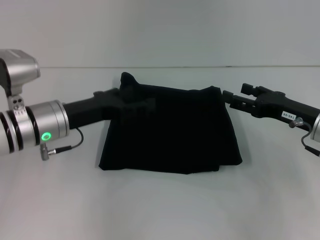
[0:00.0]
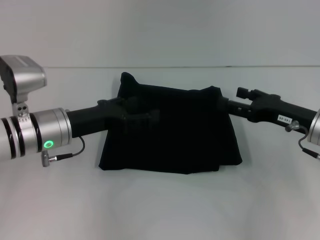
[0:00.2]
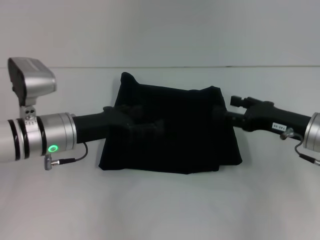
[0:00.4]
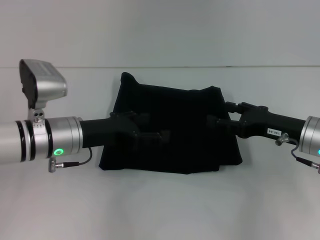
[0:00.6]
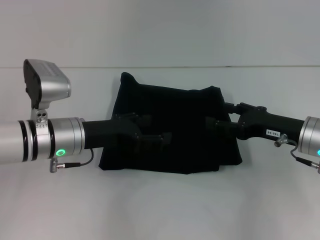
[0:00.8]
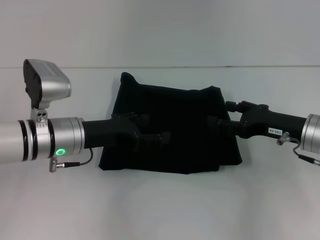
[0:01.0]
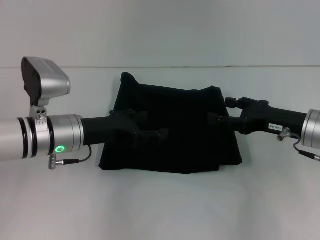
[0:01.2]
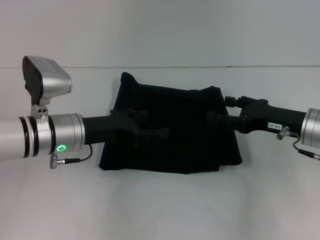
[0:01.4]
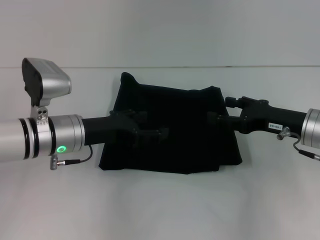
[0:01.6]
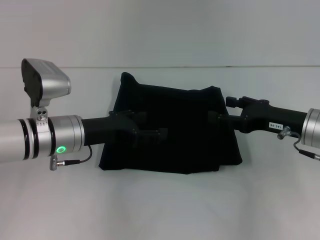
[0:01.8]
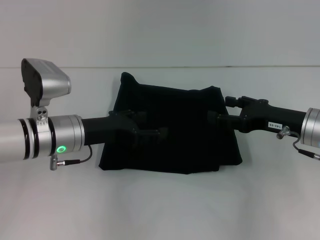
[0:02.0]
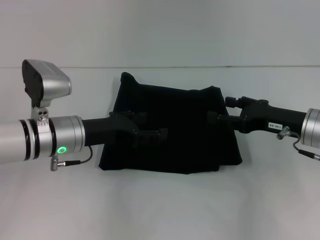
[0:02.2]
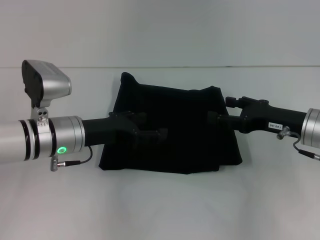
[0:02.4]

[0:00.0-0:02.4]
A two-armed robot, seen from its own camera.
0.0 to 1.2 s: The grippers make only small movements.
1.2 to 2.4 s: Both grippers stay about where they are.

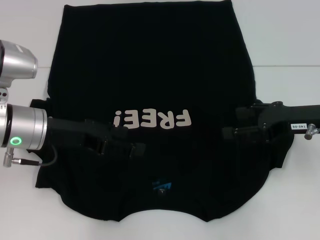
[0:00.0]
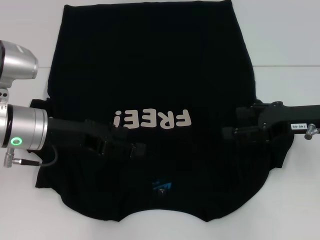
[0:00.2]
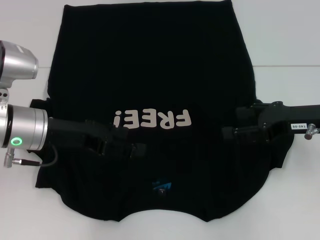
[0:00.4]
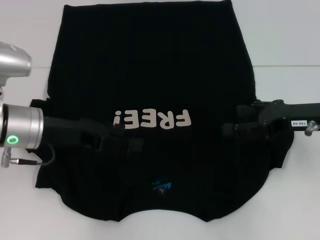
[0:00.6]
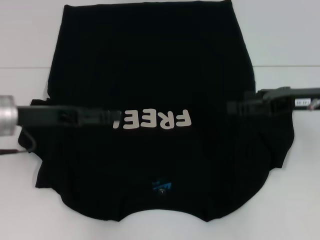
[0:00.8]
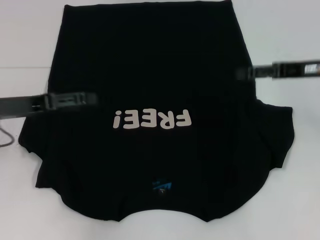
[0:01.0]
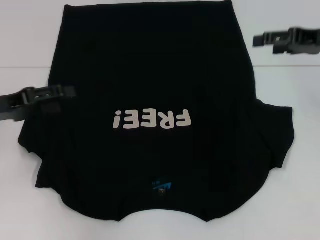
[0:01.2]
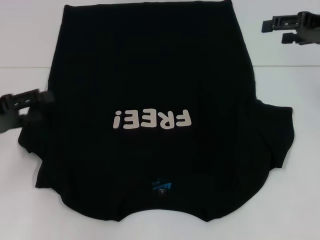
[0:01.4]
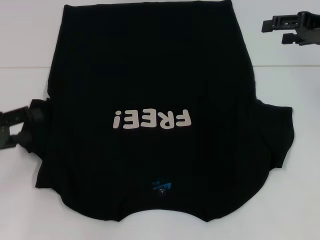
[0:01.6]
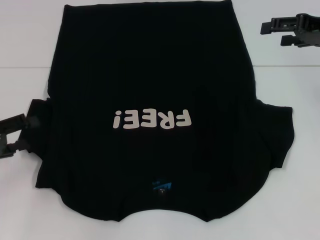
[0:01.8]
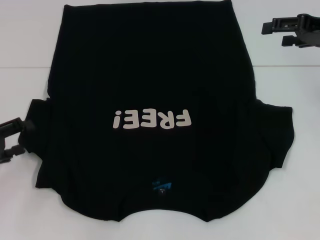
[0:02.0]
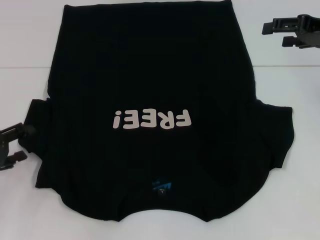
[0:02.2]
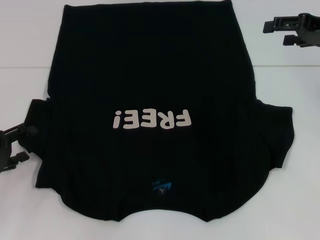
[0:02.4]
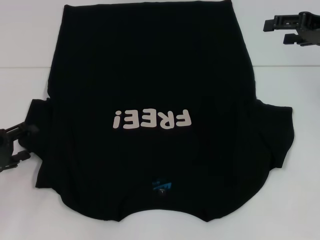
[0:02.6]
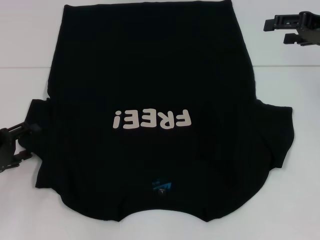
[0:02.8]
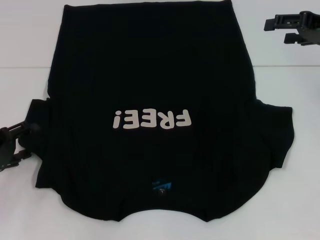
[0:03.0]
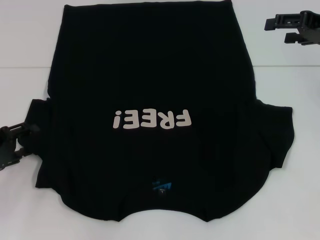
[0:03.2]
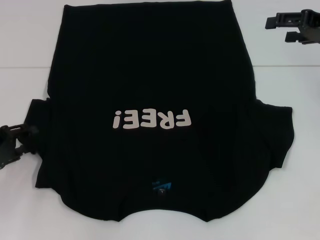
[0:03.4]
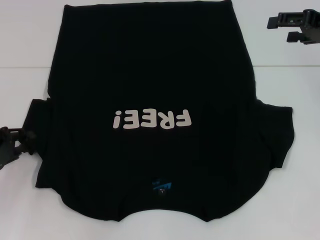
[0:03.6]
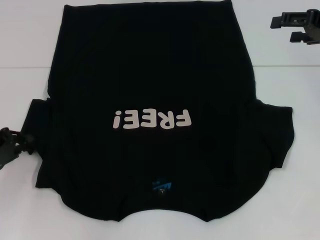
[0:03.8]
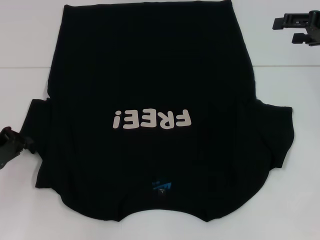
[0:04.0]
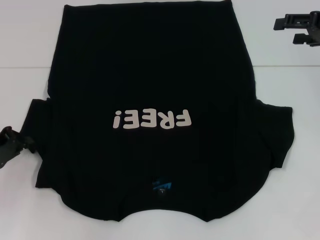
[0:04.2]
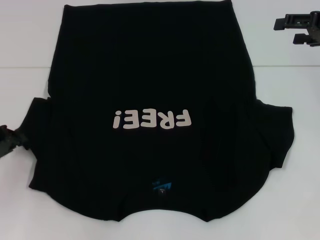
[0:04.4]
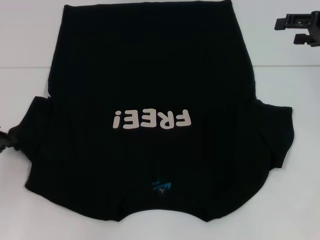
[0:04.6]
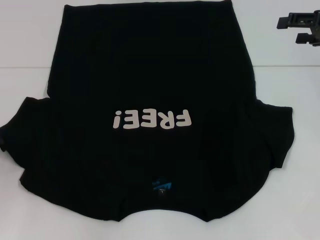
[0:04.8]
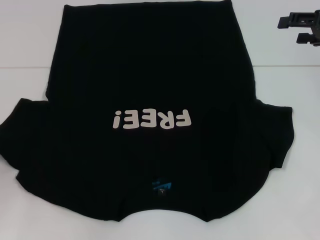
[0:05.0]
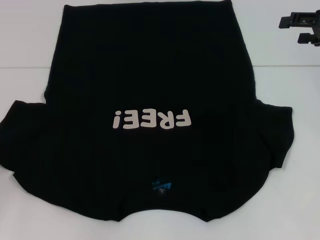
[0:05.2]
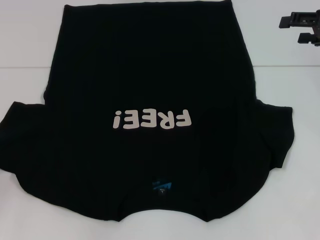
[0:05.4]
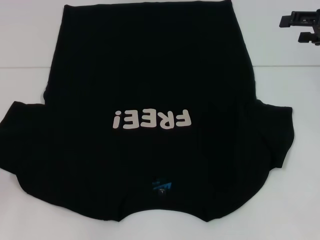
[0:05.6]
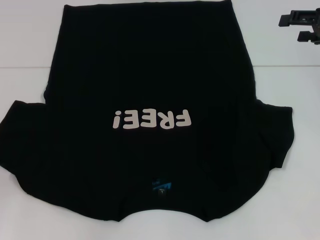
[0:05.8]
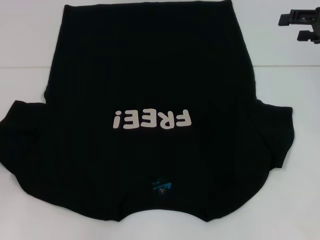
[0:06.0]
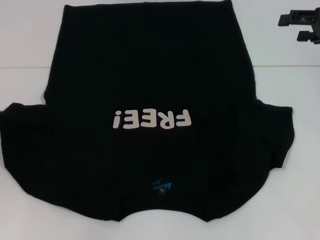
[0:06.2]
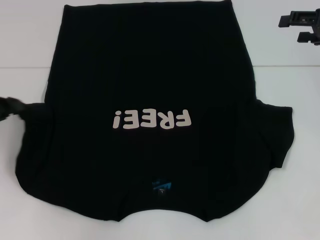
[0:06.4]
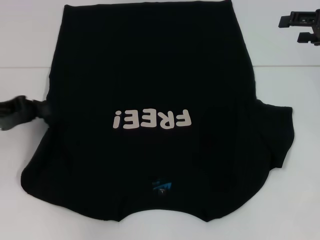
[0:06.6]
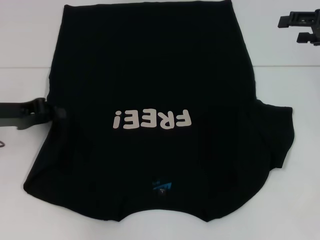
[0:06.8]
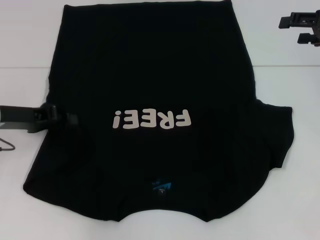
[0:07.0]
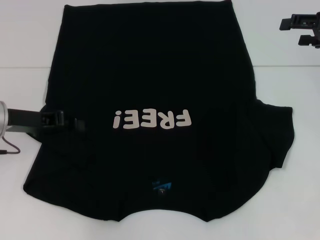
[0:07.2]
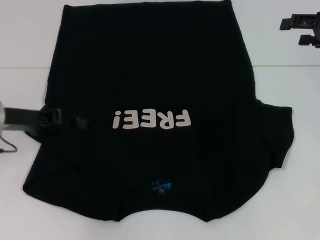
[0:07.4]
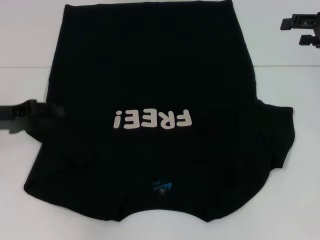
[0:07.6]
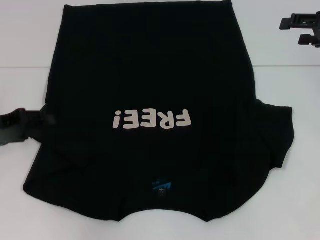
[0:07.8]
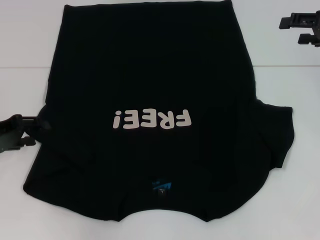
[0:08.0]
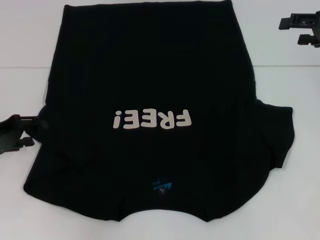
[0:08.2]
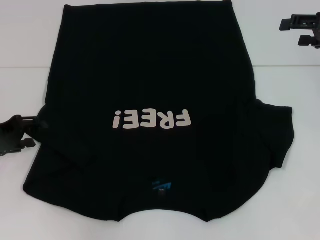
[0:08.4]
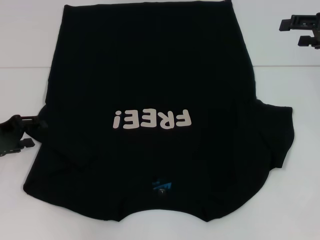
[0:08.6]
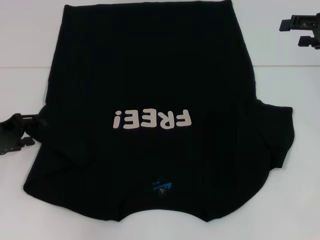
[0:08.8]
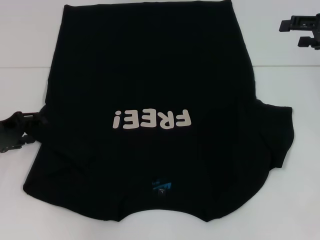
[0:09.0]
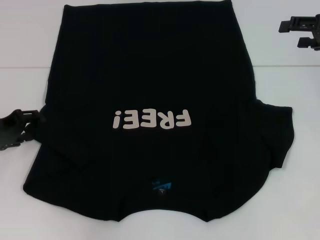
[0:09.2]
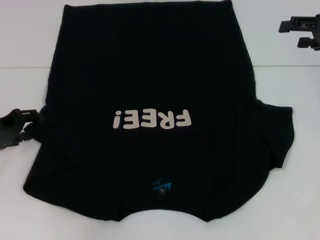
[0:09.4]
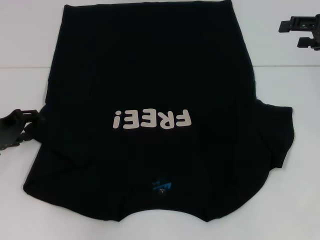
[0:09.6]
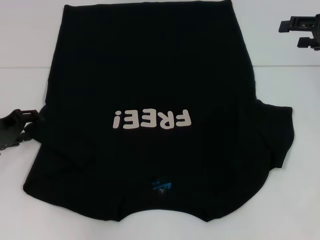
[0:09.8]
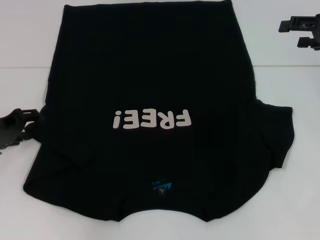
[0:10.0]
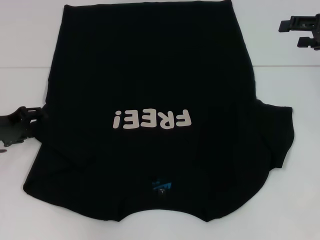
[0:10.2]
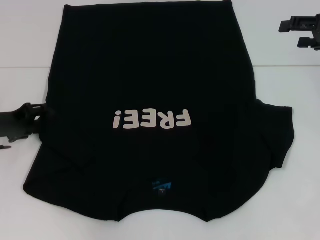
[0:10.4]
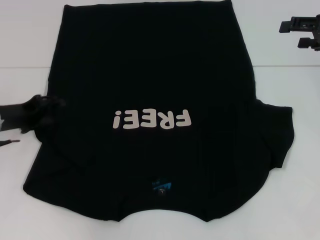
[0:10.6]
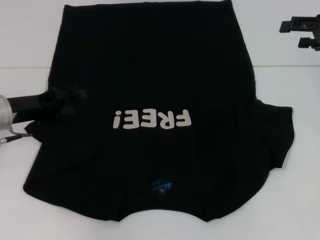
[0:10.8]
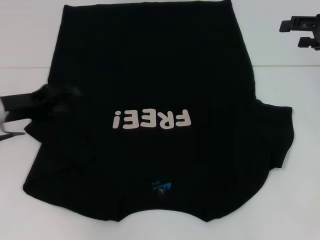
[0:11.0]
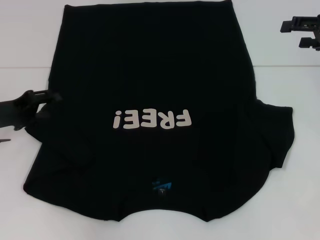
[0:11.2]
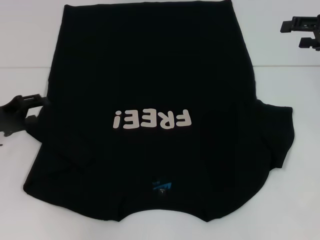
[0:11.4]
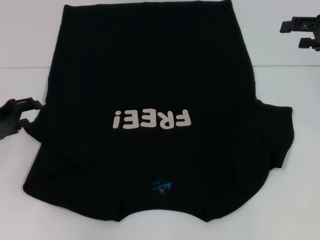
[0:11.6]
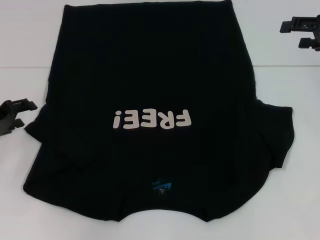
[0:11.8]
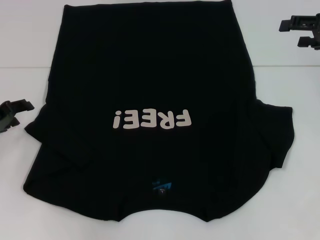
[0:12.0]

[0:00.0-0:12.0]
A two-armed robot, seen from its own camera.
0.0 to 1.6 s: The right gripper moves upward and forward, roughly 10 cm. Meanwhile the left gripper is displaced to the left by about 15 cm.
1.6 to 3.0 s: The left gripper heads downward, covering some 5 cm.
3.0 to 4.4 s: The left gripper closes.
4.4 to 6.0 s: The left gripper shifts by roughly 5 cm.
6.0 to 7.6 s: The left gripper goes about 5 cm to the right.
7.6 to 9.0 s: The left gripper opens.
9.0 to 12.0 s: There are only small adjustments of the grippers.

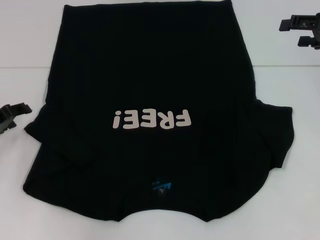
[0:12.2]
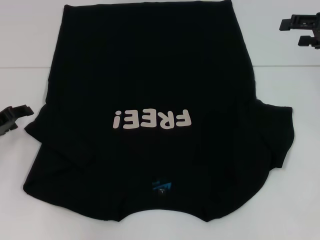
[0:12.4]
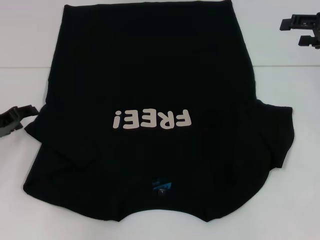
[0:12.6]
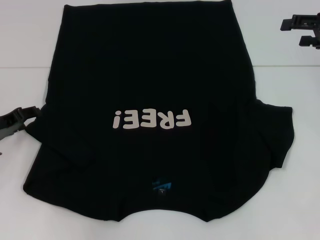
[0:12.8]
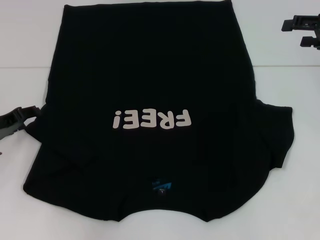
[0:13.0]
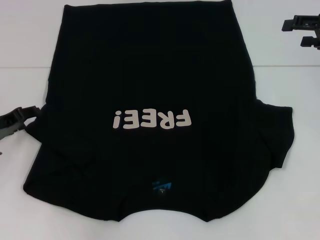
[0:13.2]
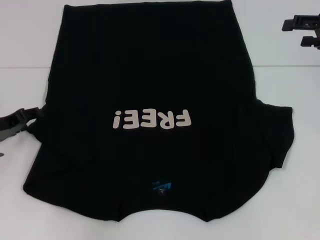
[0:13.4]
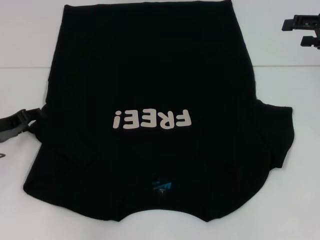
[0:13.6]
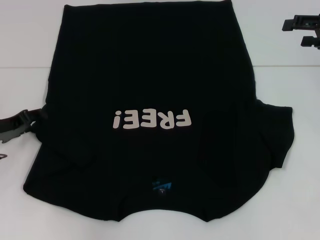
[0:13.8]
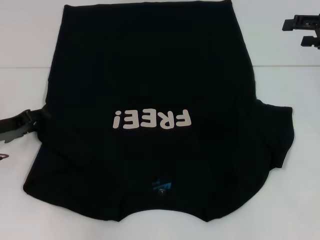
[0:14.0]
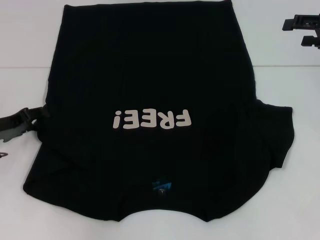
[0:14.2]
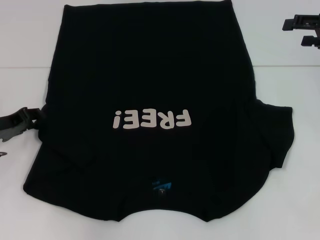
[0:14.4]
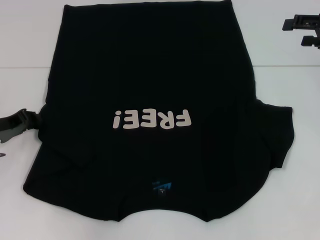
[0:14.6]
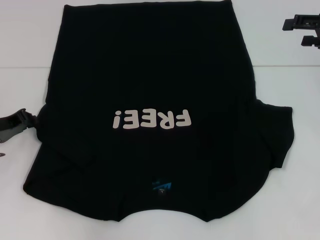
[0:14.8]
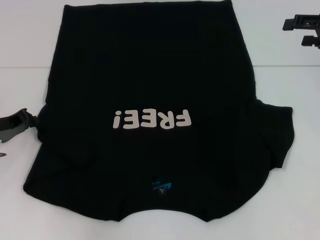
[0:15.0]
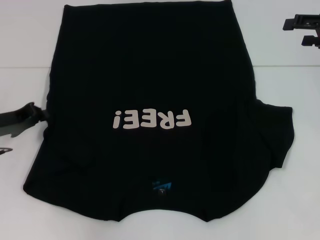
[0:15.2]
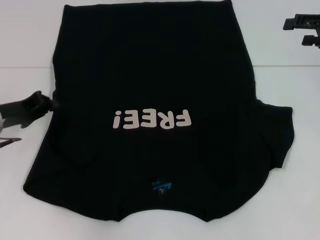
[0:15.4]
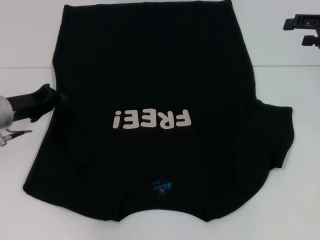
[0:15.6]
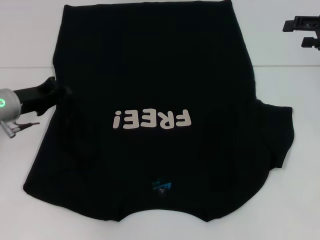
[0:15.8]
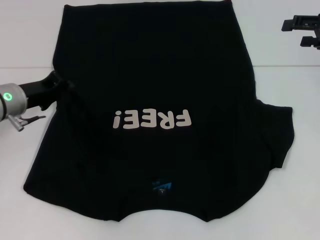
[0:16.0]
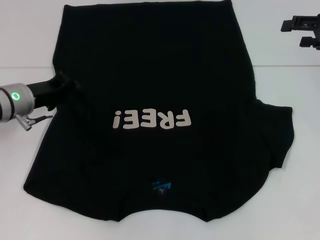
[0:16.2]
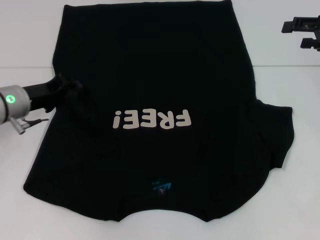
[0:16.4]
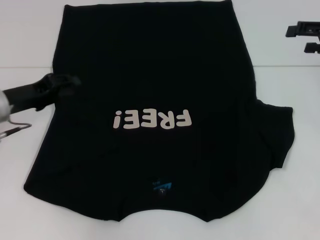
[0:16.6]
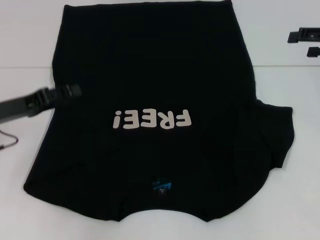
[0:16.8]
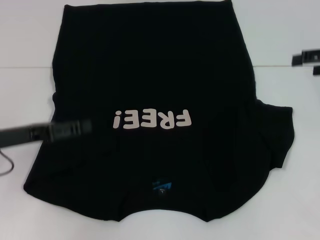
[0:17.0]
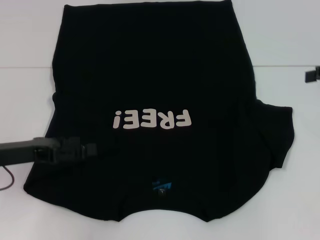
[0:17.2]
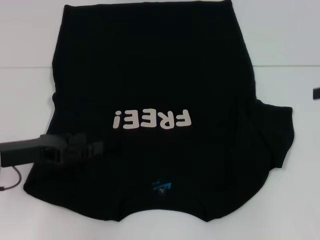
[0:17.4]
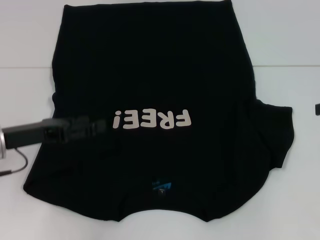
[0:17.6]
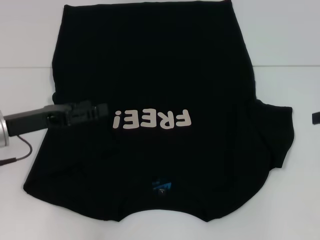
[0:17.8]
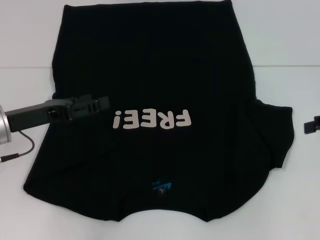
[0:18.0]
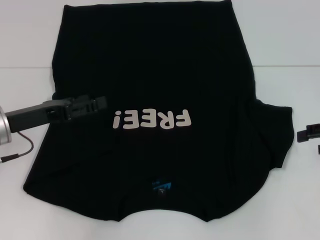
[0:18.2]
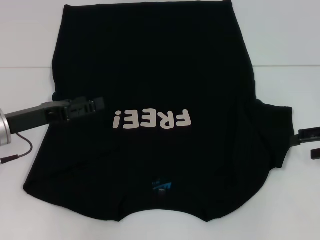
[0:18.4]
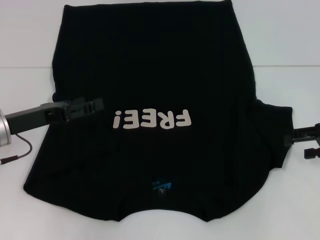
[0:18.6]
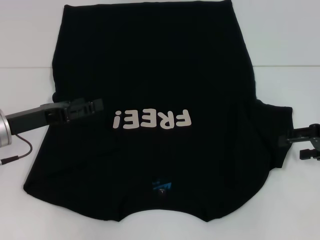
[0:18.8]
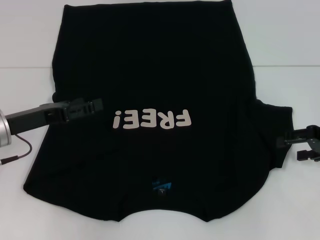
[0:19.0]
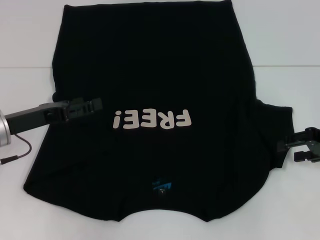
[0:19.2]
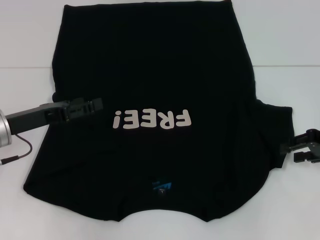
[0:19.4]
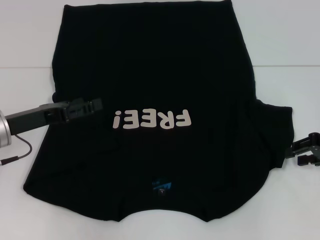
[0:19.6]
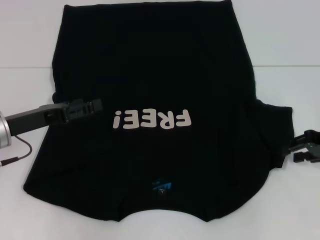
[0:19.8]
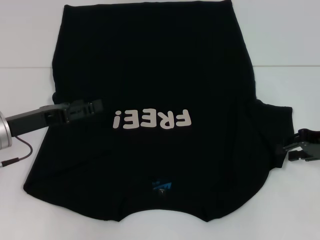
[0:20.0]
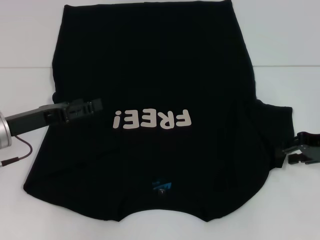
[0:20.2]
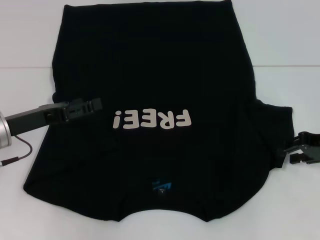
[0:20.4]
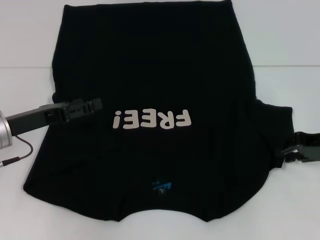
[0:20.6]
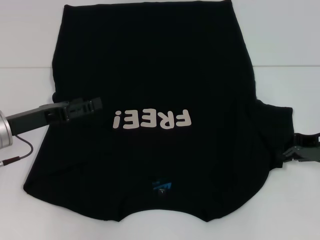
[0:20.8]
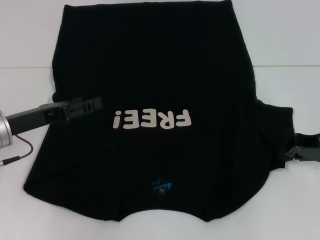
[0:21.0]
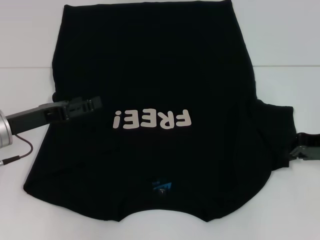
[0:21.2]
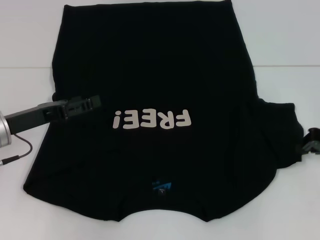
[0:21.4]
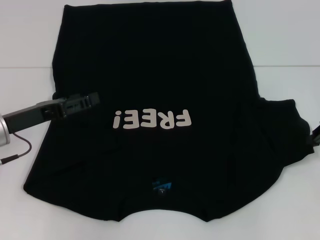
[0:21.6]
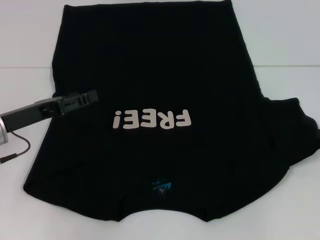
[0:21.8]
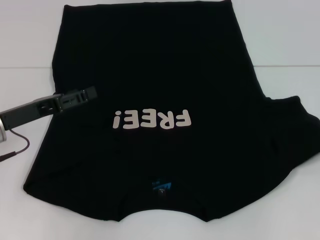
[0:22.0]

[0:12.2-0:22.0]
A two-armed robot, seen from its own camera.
Step, 12.2 to 16.4 s: Fold the bottom left sleeve with your left hand.
12.2 to 13.6 s: The grippers stay close to where they were, moving slightly.
15.0 to 16.4 s: The left gripper moves to the right, some 5 cm.
16.4 to 17.8 s: The two grippers go approximately 5 cm backward. The left gripper opens.
17.8 to 19.2 s: The right gripper is displaced downward by approximately 5 cm.
19.2 to 20.6 s: The right gripper closes its fingers.
20.6 to 22.0 s: The right gripper travels to the right by approximately 5 cm, and closes its fingers.
